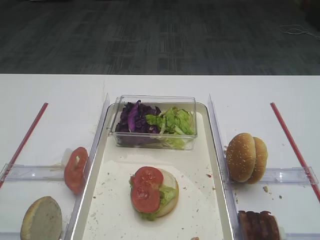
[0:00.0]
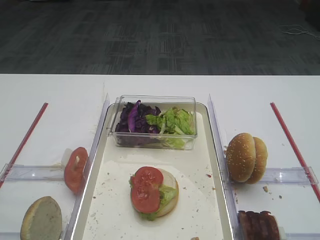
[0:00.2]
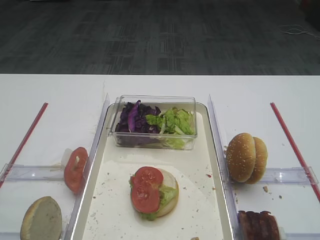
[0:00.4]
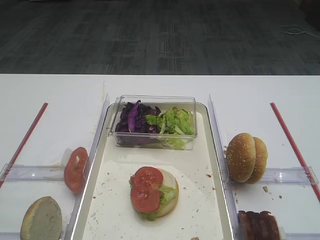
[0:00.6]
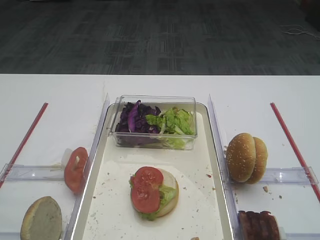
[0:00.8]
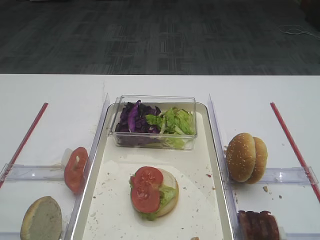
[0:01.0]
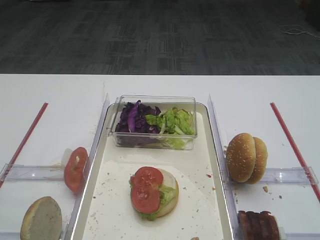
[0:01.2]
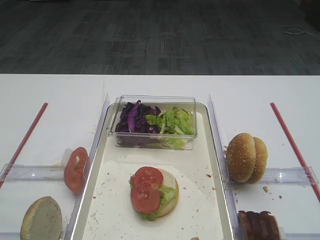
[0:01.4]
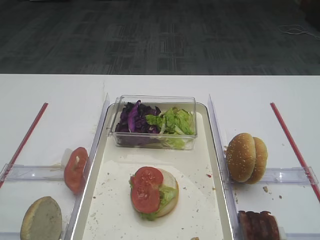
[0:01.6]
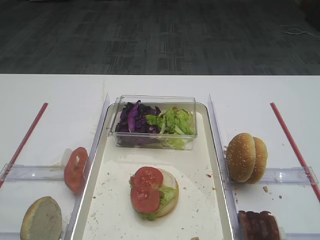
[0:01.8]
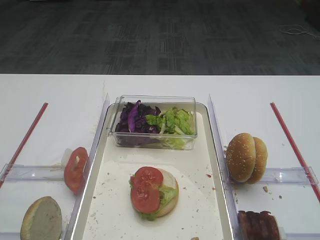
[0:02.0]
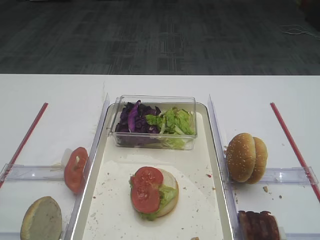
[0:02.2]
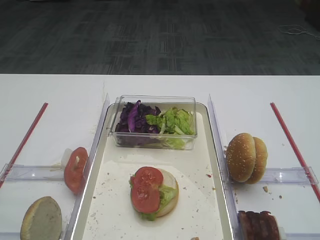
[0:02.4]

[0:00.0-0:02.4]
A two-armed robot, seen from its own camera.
0:01.2 to 0:02.4: Neither gripper changes place.

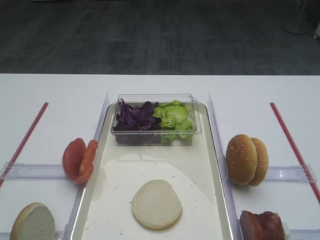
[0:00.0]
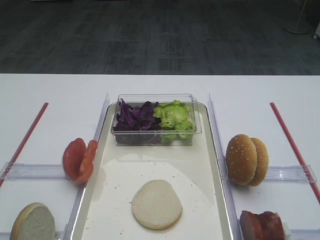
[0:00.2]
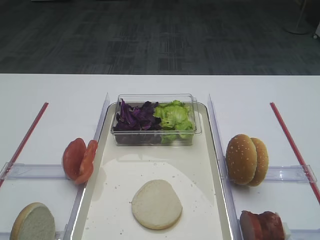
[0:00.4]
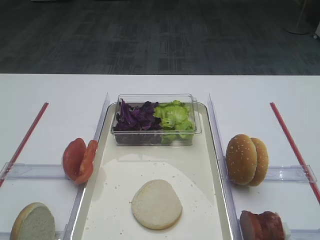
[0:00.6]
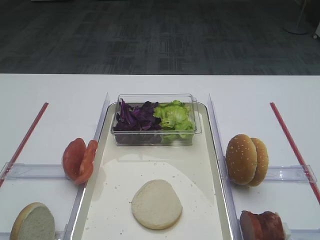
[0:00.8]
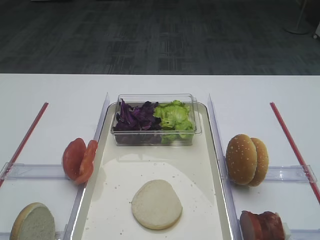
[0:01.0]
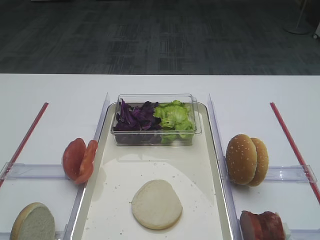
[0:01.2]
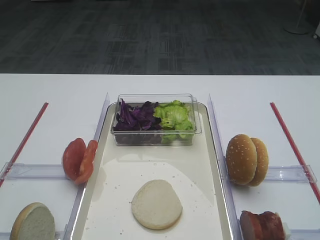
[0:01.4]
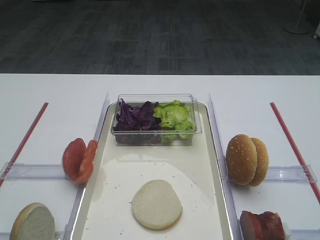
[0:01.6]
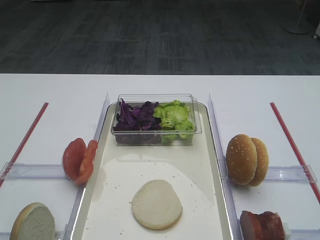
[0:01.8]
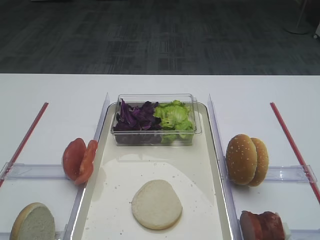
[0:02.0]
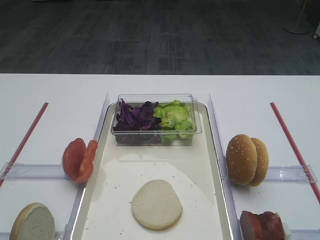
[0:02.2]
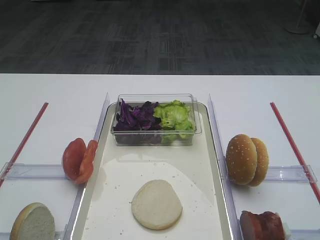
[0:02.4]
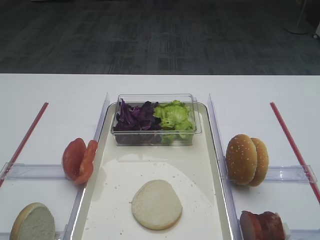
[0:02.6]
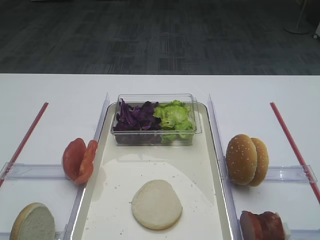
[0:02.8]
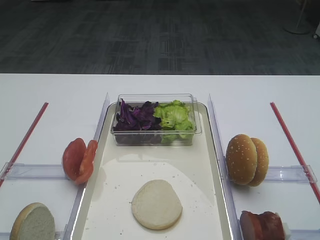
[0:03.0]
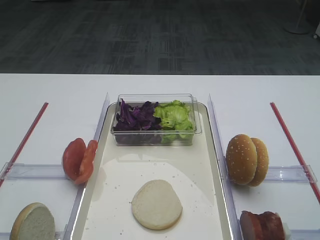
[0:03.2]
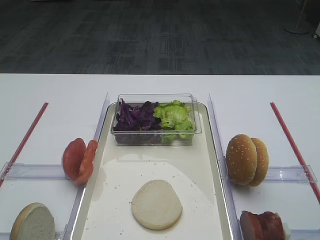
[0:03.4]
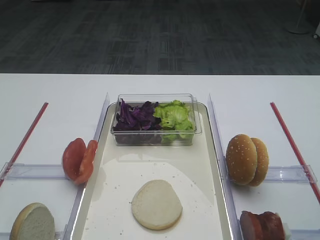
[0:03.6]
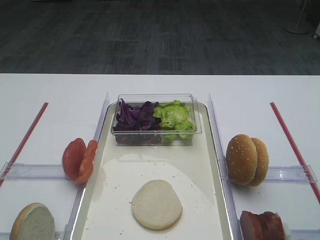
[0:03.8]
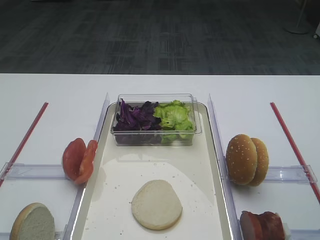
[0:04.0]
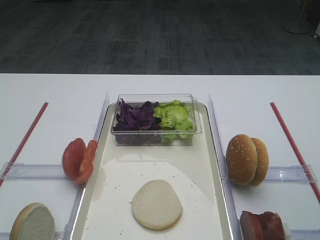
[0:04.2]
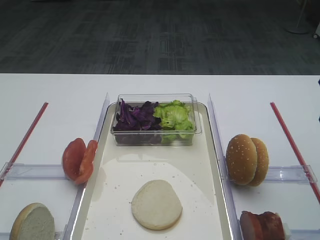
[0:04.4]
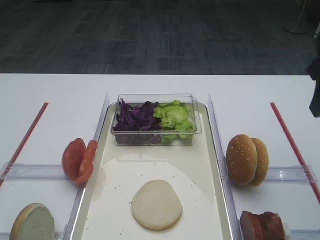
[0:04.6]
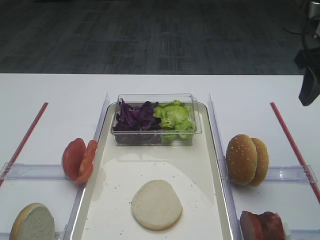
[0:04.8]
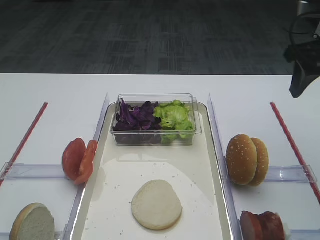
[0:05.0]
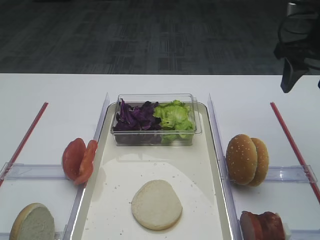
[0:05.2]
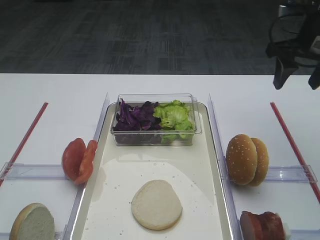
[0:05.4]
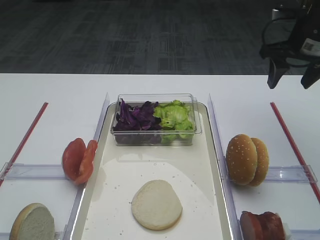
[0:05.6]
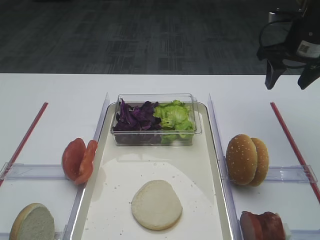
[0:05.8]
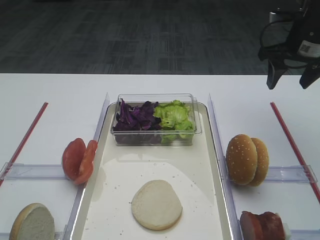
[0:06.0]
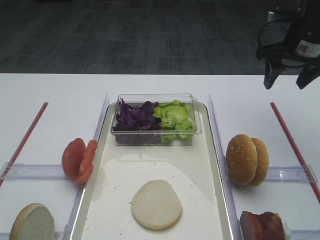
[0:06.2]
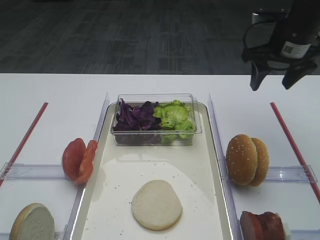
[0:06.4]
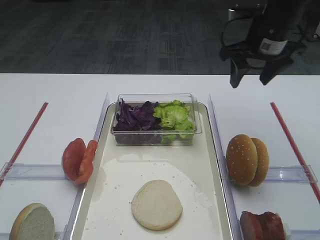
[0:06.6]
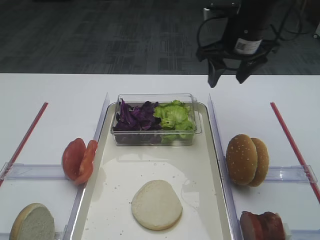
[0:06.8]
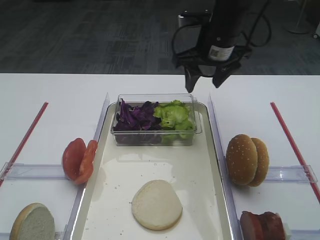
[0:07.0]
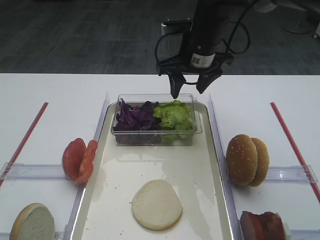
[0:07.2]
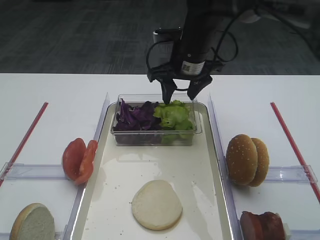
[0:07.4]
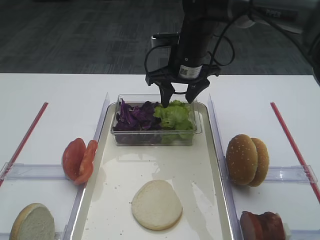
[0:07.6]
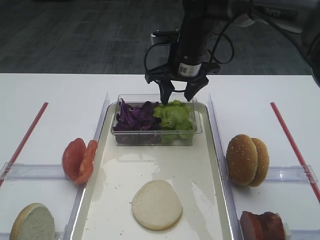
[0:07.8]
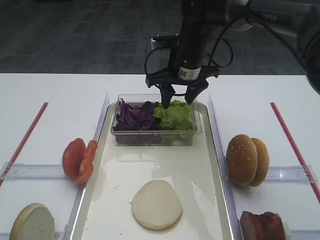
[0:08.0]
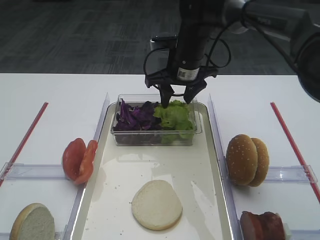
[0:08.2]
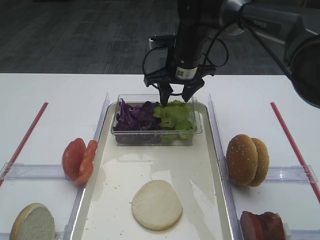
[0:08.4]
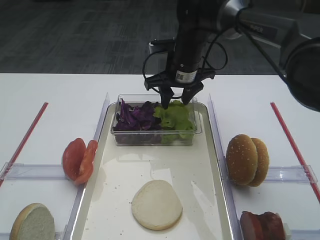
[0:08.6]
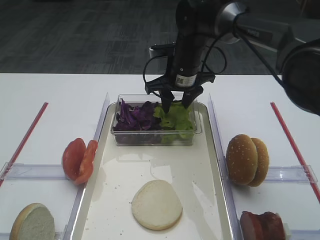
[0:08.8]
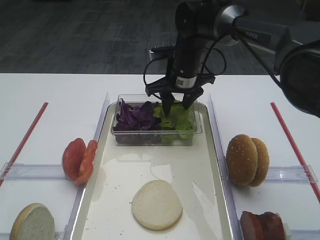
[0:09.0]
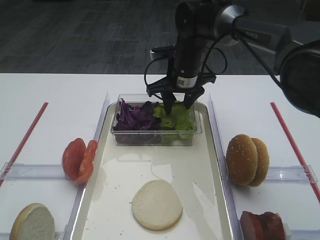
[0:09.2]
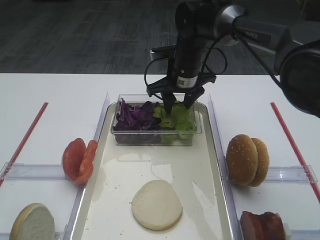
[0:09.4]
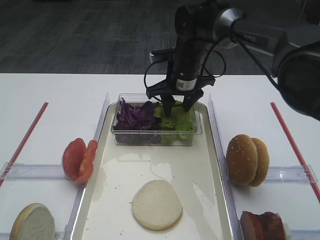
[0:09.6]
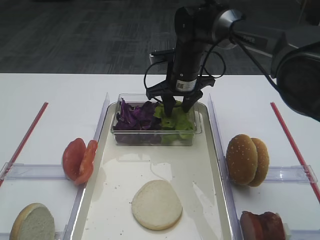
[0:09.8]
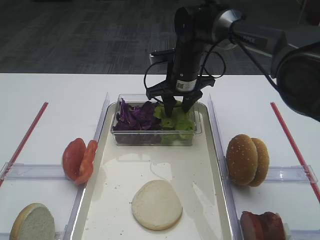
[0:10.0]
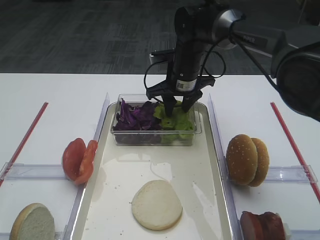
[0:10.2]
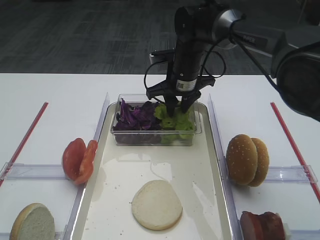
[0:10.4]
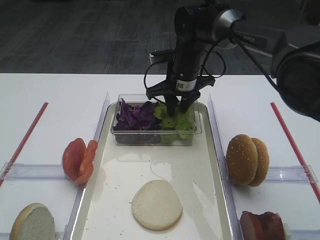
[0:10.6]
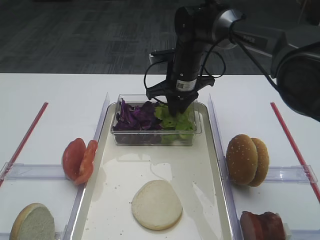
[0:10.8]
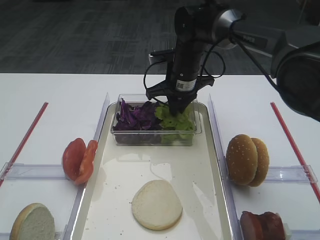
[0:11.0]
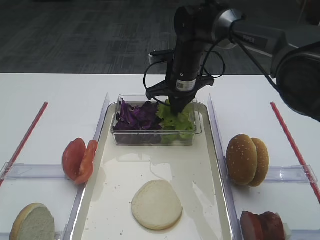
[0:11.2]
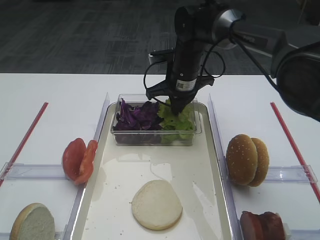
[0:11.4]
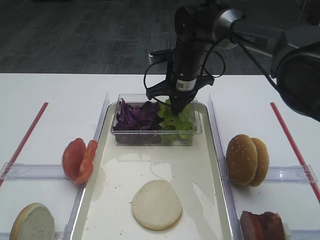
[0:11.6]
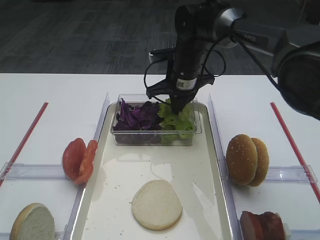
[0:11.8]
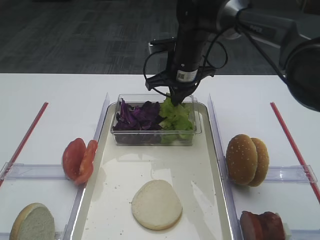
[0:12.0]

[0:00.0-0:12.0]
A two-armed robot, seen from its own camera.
0:04.4 to 0:06.0: The right gripper goes approximately 20 cm forward.
0:06.0 to 0:07.6: The right gripper goes approximately 20 cm to the left.
0:07.6 to 0:09.0: The grippers stay close to where they were, moving slightly.
0:09.0 to 0:10.4: Both grippers stay put.
0:10.4 to 0:12.0: The right gripper closes.

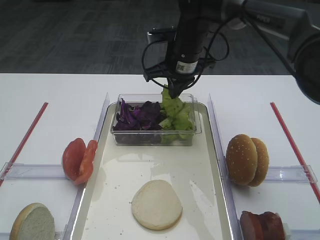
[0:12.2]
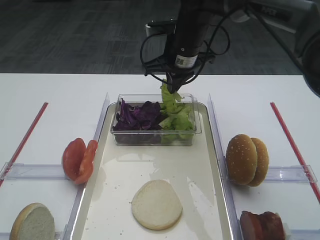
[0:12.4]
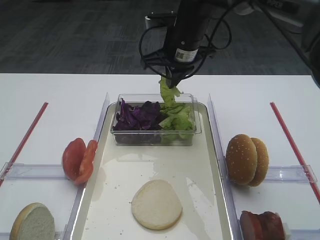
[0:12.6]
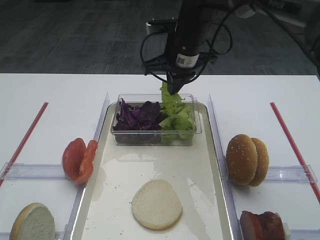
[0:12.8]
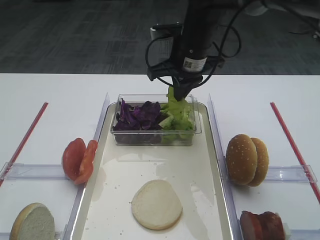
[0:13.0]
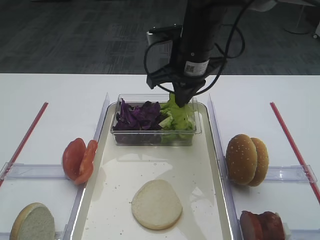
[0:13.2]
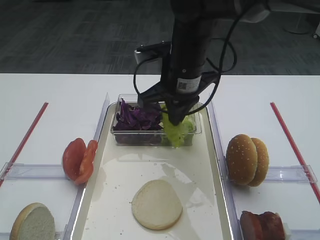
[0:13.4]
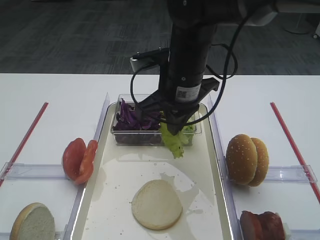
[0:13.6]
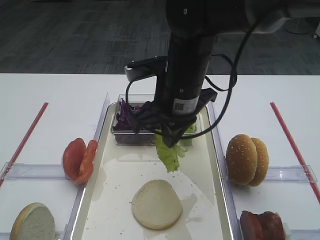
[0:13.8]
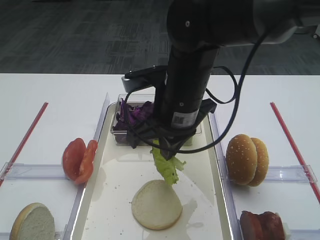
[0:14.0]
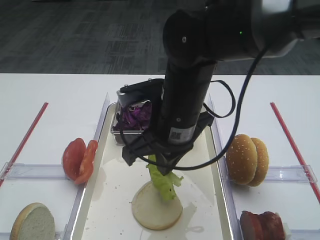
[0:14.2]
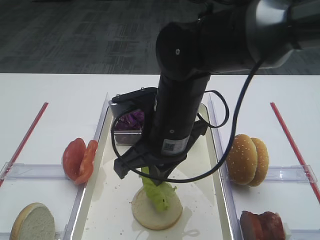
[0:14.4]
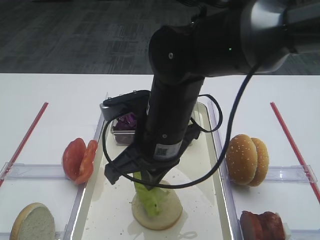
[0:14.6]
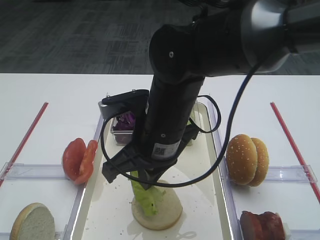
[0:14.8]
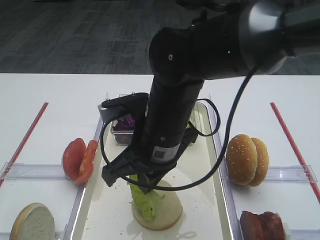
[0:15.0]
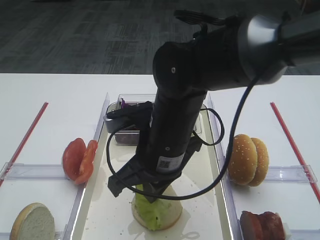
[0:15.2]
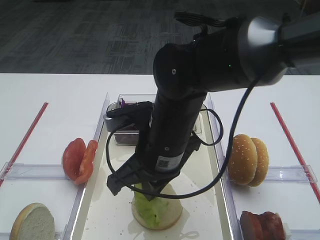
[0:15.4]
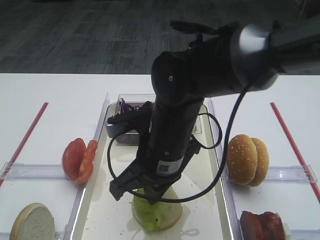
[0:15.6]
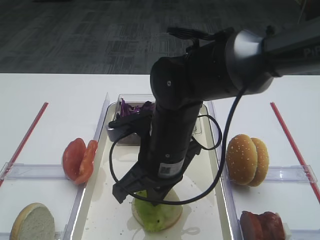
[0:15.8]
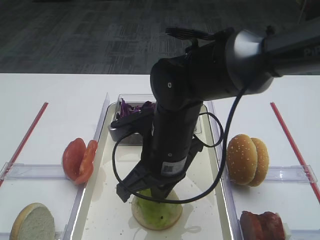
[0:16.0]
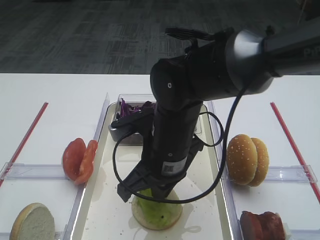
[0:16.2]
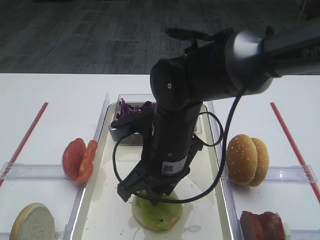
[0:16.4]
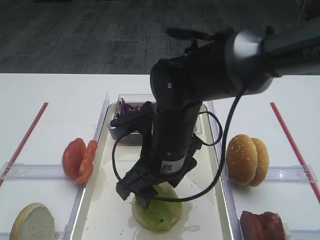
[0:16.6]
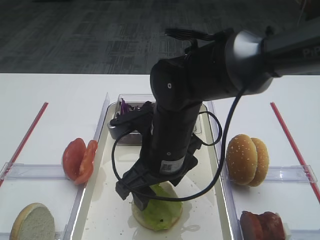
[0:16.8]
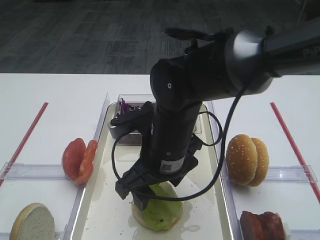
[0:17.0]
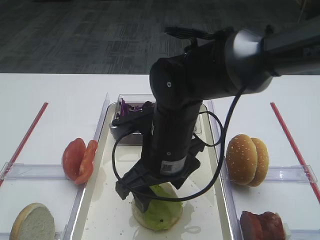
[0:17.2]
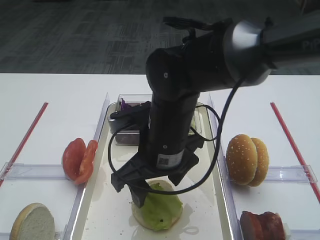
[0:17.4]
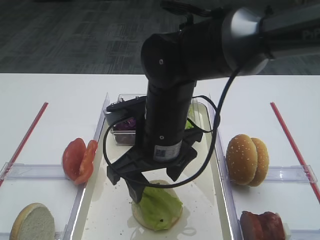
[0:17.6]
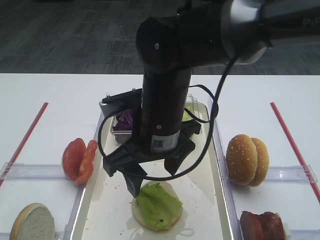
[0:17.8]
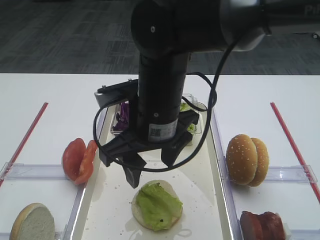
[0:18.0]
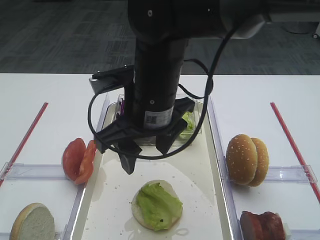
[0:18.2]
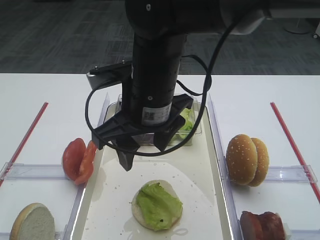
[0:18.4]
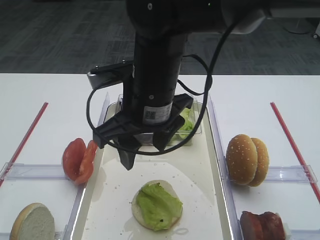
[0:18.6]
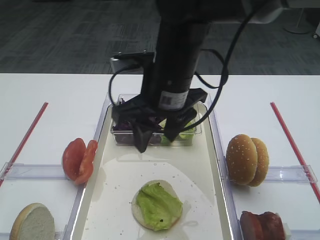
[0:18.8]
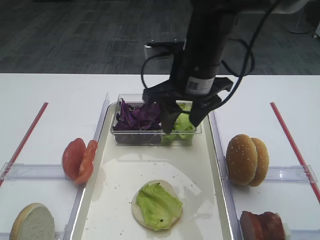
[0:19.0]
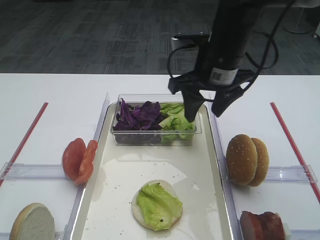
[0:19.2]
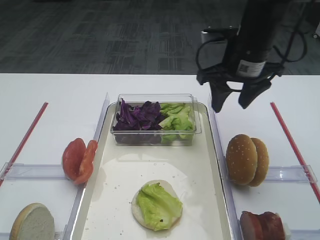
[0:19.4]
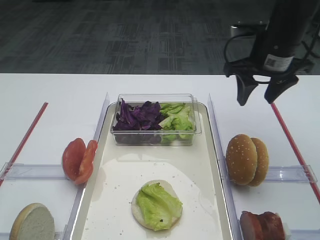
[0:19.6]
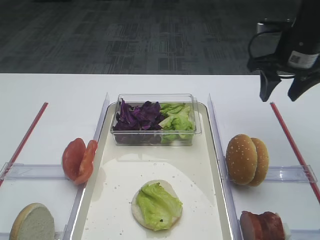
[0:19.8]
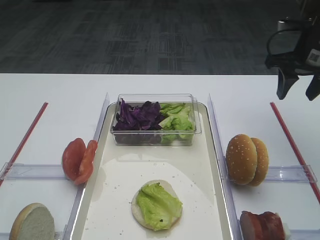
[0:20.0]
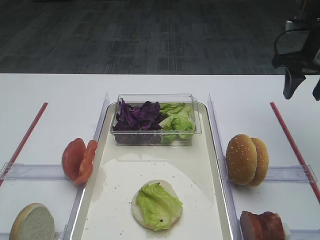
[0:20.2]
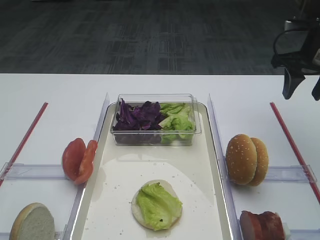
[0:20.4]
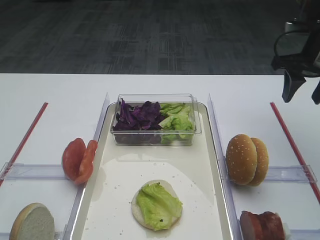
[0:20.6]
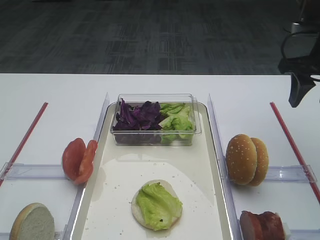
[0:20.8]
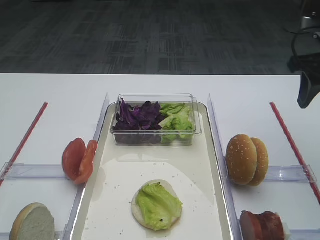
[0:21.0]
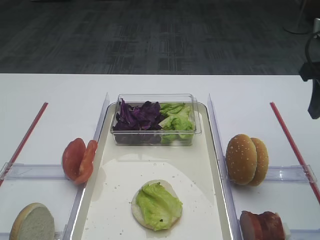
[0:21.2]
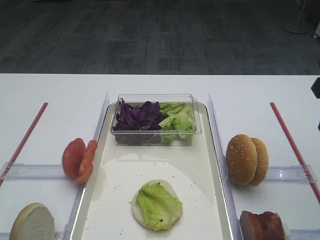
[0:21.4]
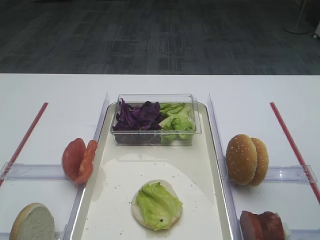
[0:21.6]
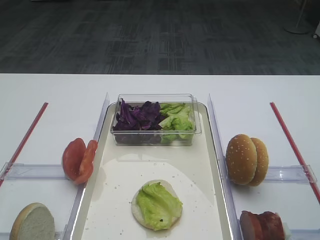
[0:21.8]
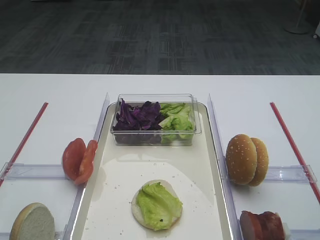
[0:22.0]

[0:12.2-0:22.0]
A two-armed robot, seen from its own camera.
Step, 0:12.2 to 0:17.4: Place the lettuce leaf on the bread slice with the right gripper.
0:12.2 to 0:13.6: The right gripper is displaced backward by roughly 10 cm.
0:13.6 to 0:15.0: The right gripper heads backward, covering about 10 cm.
0:15.0 to 0:16.4: The grippers stay close to where they were, moving slightly.
0:16.4 to 0:17.8: The right gripper opens up.
0:17.8 to 0:19.2: The right gripper goes roughly 15 cm forward and to the right.
0:19.2 to 0:20.6: The right gripper goes roughly 20 cm to the right.
0:20.6 to 0:22.0: The right gripper goes approximately 25 cm backward.
